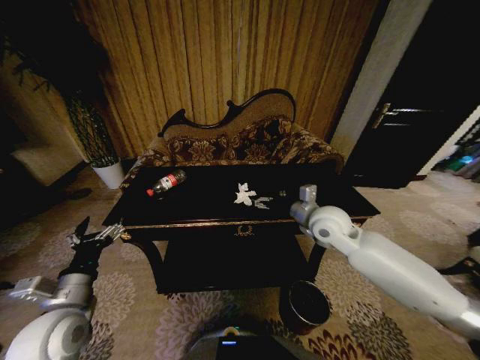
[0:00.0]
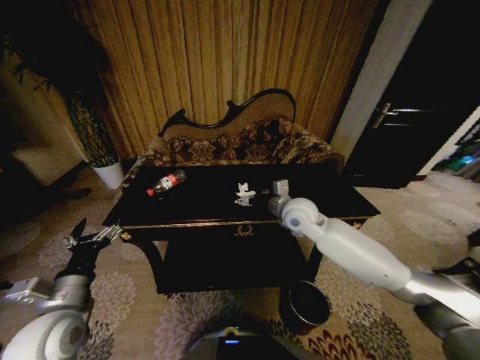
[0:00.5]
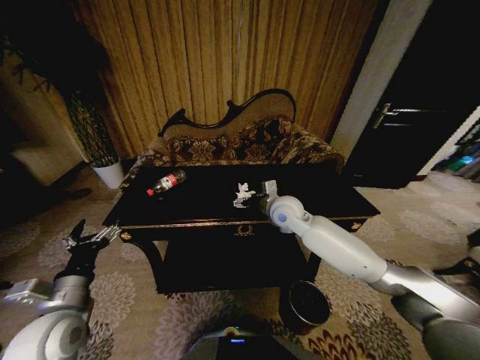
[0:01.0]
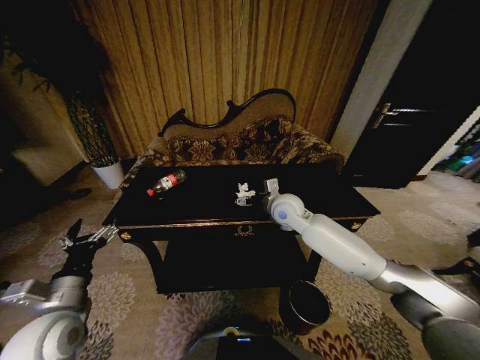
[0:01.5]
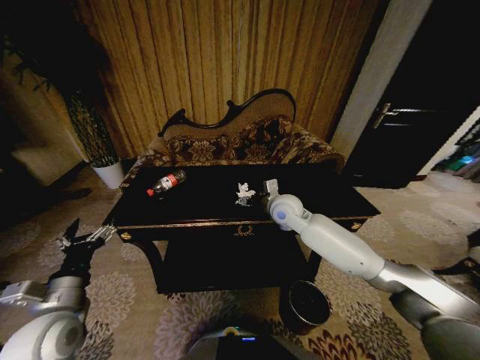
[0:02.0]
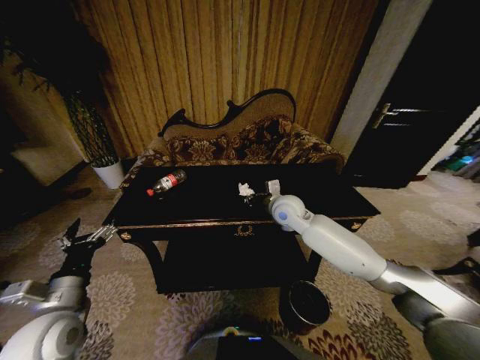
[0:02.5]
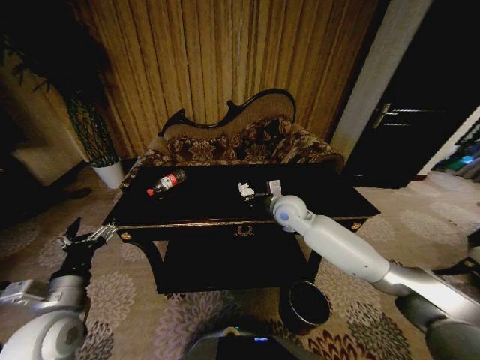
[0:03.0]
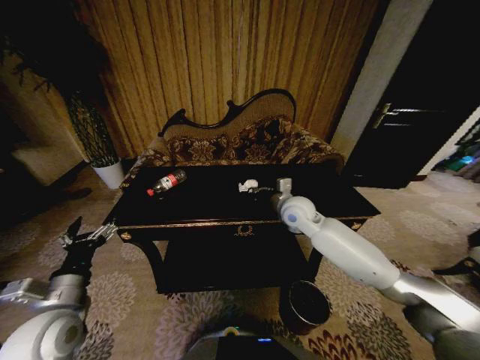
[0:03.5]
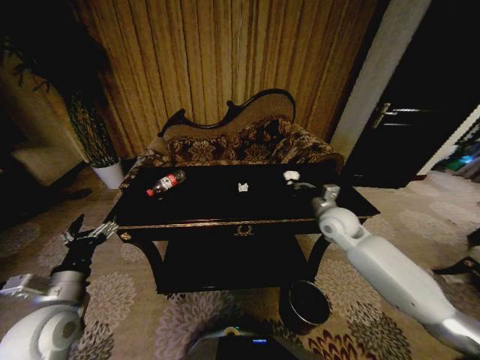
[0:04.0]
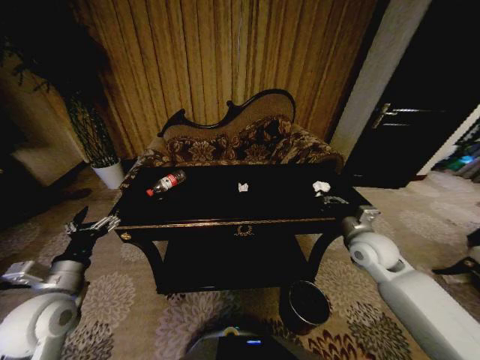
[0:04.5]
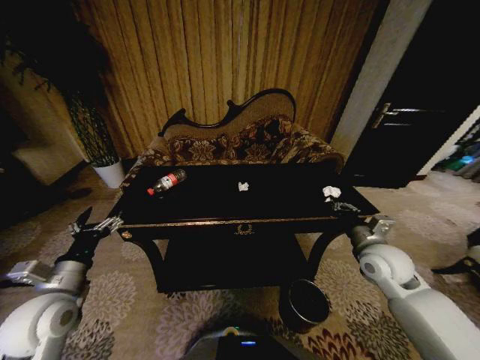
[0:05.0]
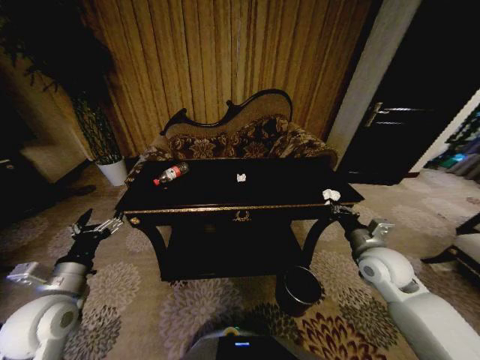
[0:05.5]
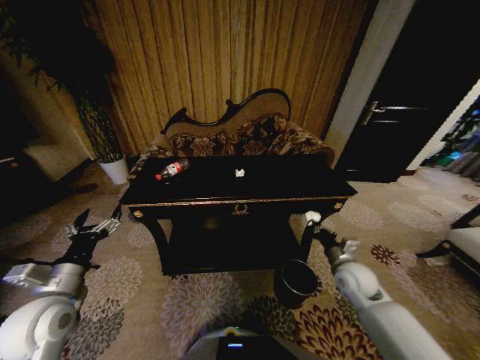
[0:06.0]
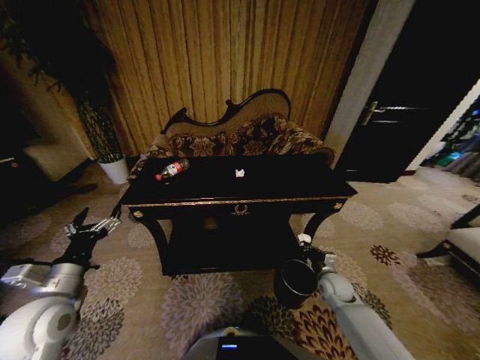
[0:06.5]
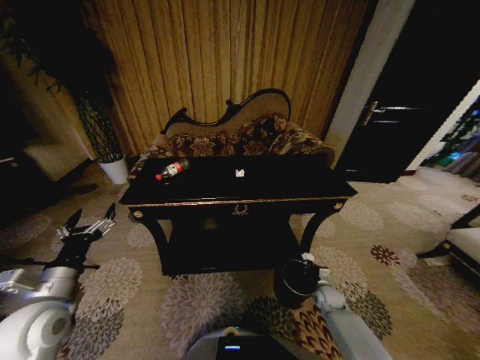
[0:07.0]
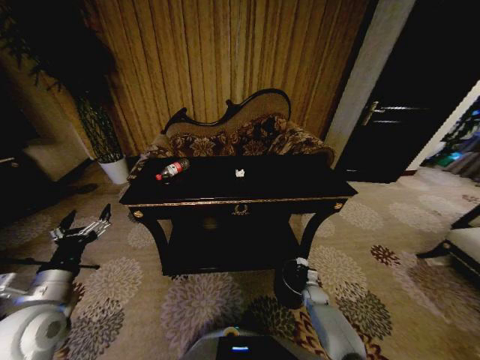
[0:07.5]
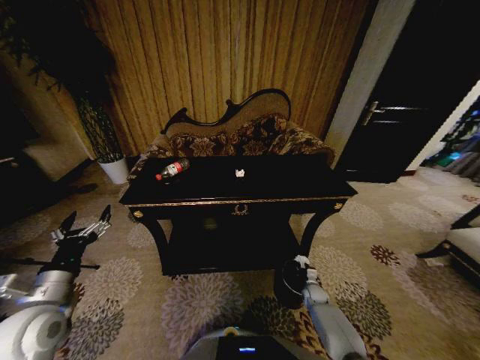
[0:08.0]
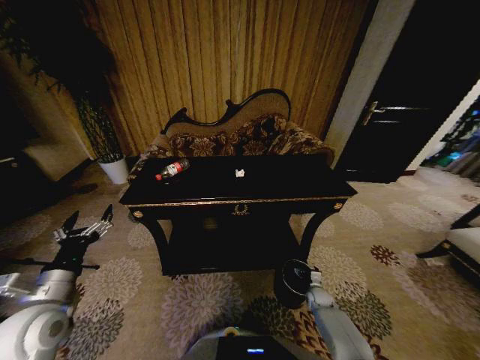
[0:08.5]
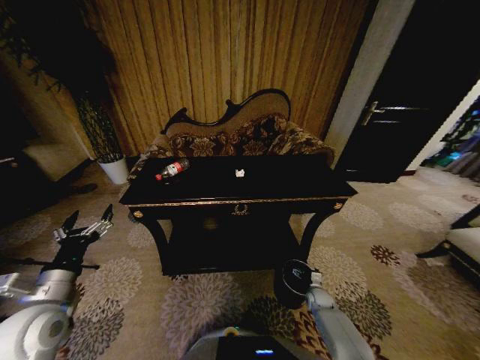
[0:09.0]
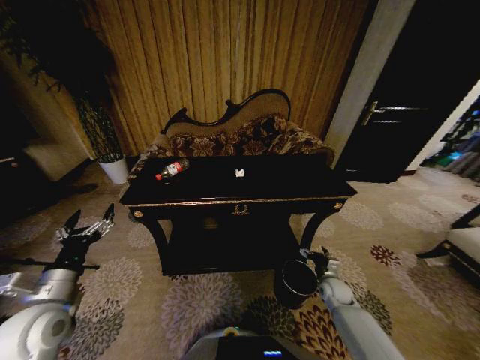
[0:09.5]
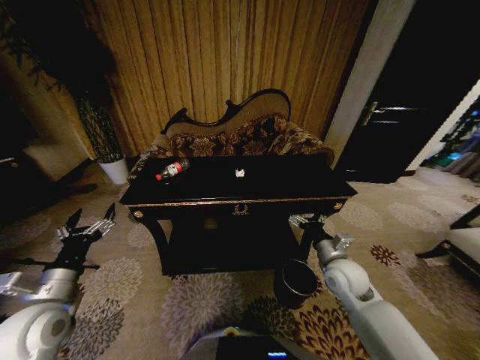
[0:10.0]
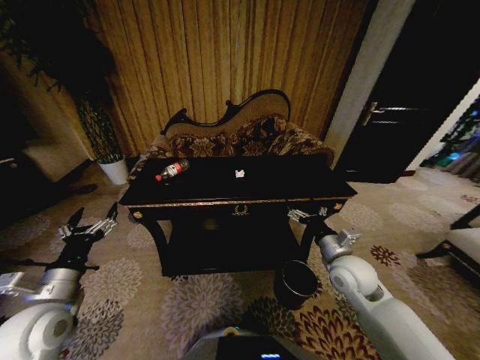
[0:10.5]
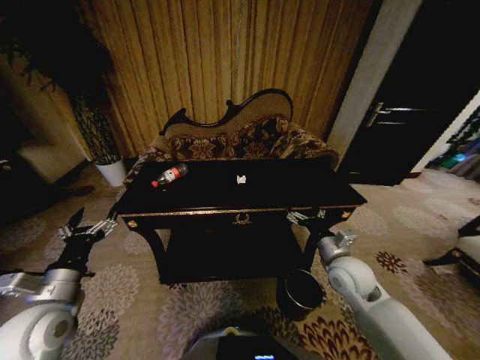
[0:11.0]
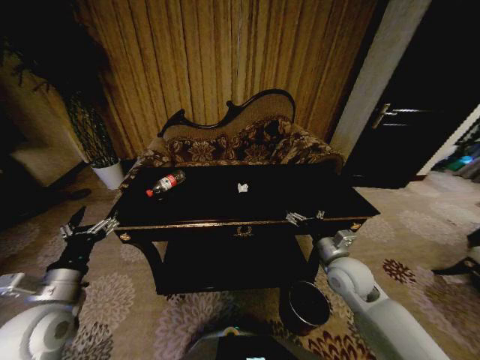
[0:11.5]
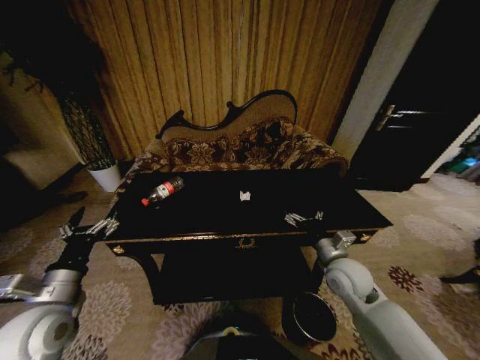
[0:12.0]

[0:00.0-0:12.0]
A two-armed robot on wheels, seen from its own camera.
Task of the whole recording: Move to the front of the table and place the trash on the table into the trash bin.
0:00.0 to 0:02.0: The right gripper heads to the left and forward, covering roughly 10 cm.
0:02.0 to 0:04.0: The right gripper heads to the right, covering about 15 cm, and closes.
0:04.0 to 0:06.0: The right gripper goes some 15 cm backward and downward.
0:06.0 to 0:08.0: The right gripper shifts some 30 cm downward.
0:08.0 to 0:10.0: The right gripper moves upward, some 30 cm, and opens.

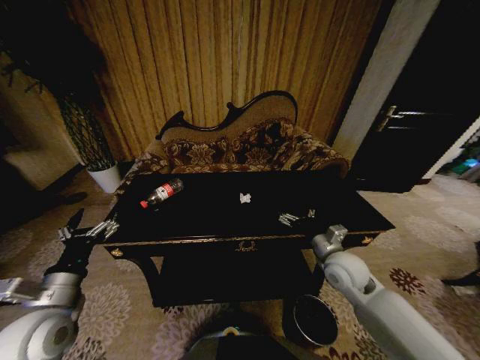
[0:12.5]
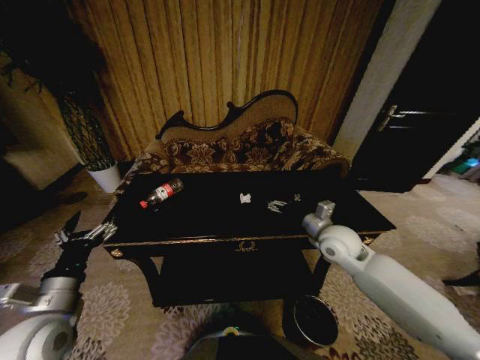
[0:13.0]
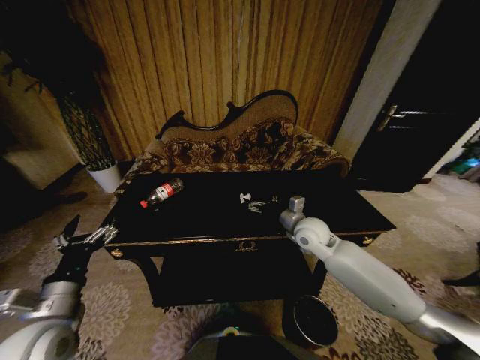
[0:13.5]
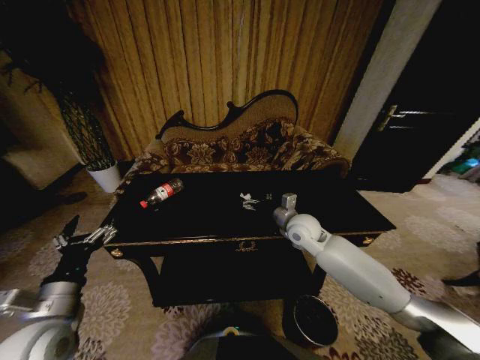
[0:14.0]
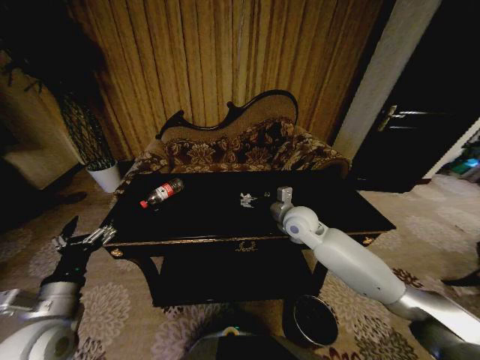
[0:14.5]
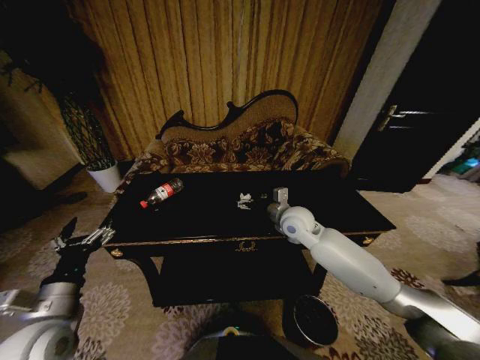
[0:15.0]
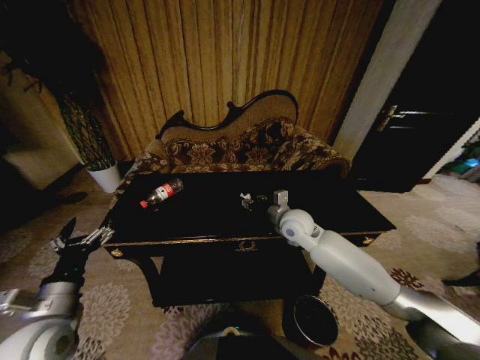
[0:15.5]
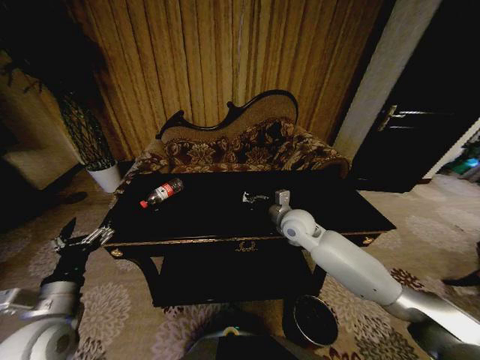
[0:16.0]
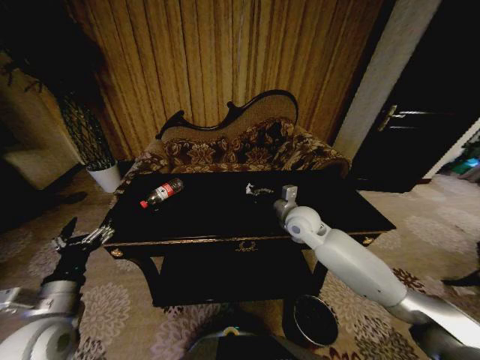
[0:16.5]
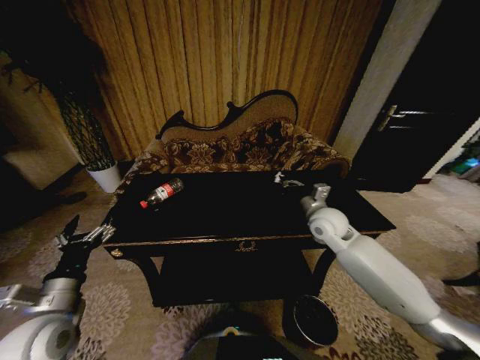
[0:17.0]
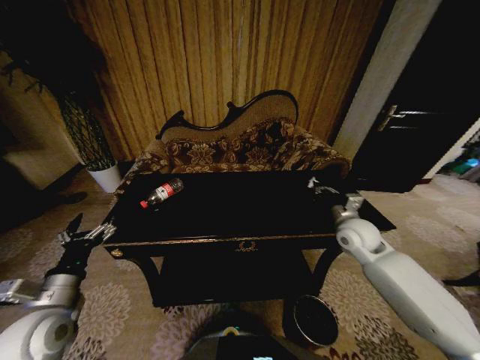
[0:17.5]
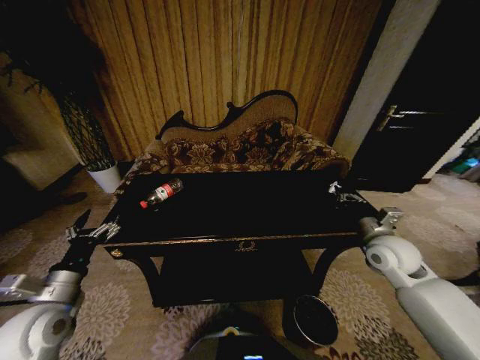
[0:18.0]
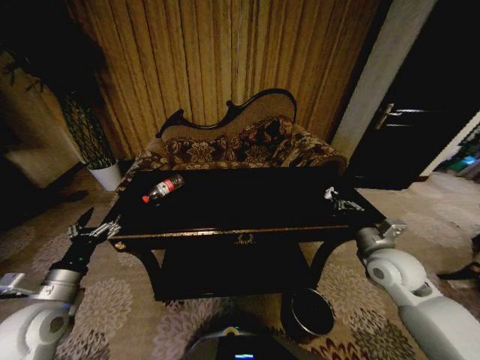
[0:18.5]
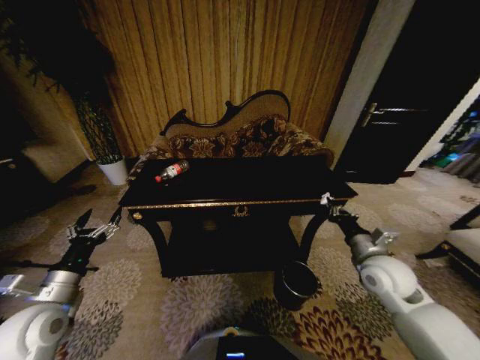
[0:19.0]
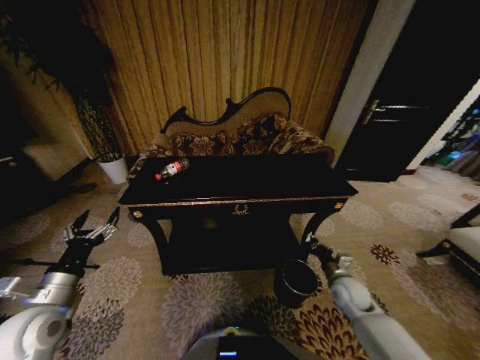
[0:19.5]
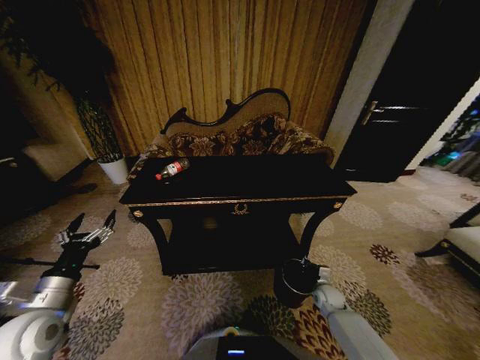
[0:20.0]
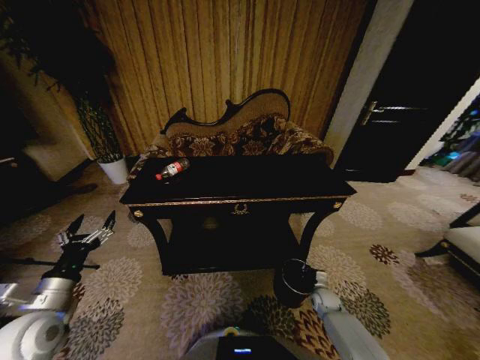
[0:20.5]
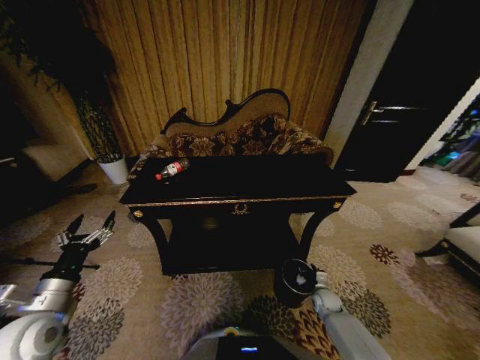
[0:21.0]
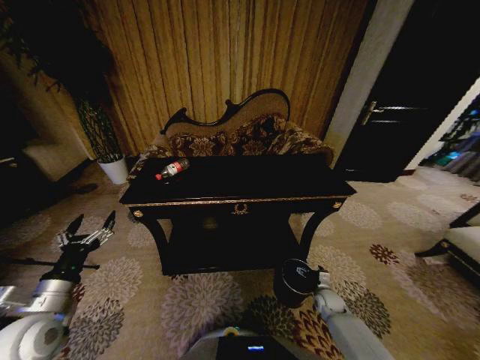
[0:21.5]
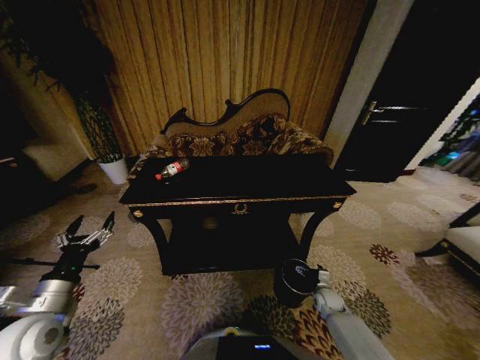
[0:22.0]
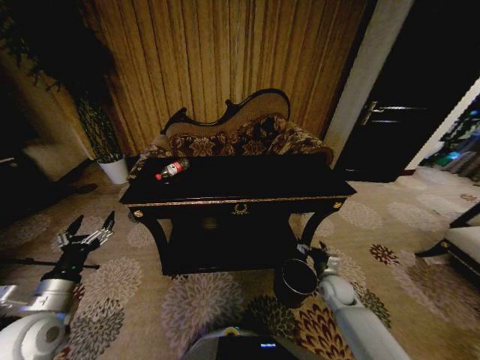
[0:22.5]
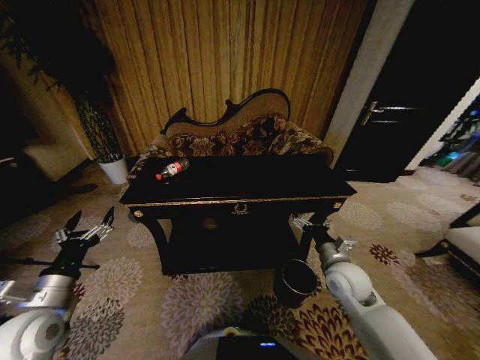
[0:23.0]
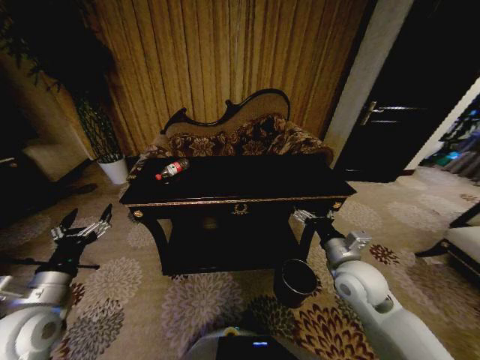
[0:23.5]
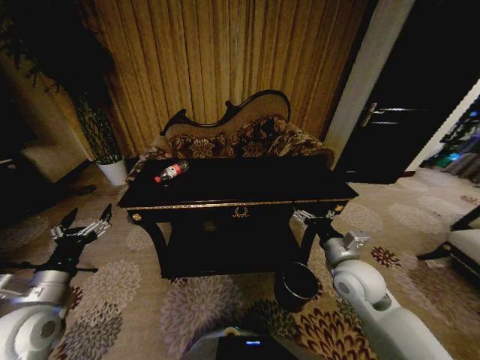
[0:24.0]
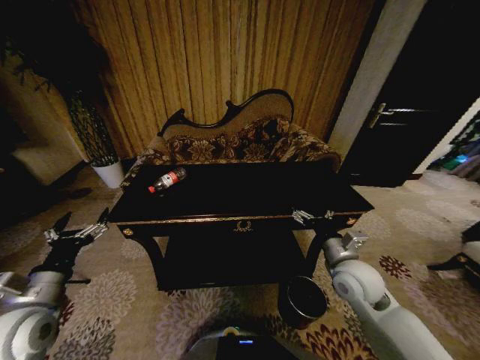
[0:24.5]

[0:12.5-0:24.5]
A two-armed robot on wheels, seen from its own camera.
Task of the whole recording: Move to the front of the table and place the trash on the table into the trash bin.
0:12.5 to 0:14.5: The right gripper is displaced forward, to the left and upward by roughly 15 cm.
0:14.5 to 0:16.5: The right gripper closes its fingers.
0:16.5 to 0:18.5: The left gripper shifts by approximately 5 cm. Meanwhile the right gripper shifts roughly 20 cm to the right and backward.
0:18.5 to 0:20.5: The right gripper travels downward by roughly 35 cm.
0:20.5 to 0:22.5: The right gripper is displaced upward by about 10 cm, and opens its fingers.
0:22.5 to 0:24.5: The right gripper heads upward, covering approximately 20 cm.

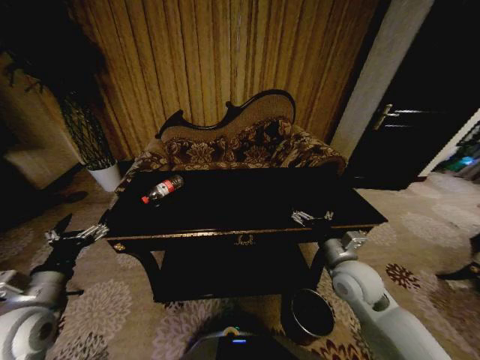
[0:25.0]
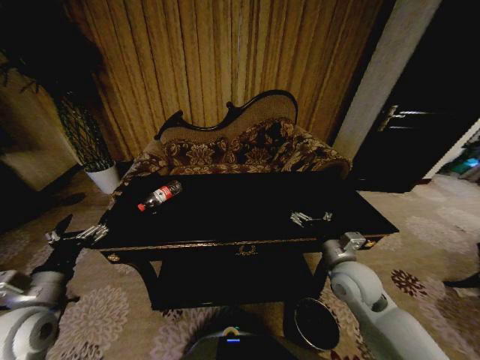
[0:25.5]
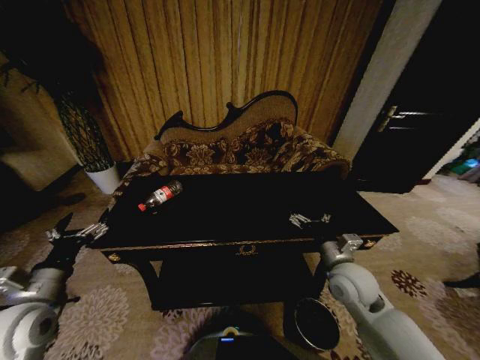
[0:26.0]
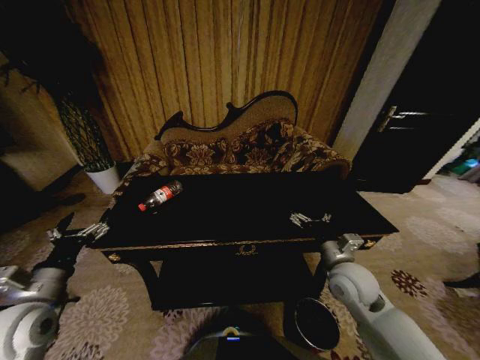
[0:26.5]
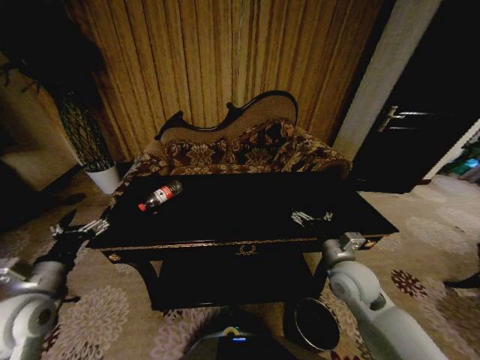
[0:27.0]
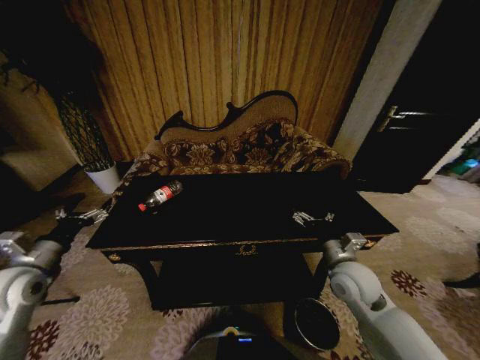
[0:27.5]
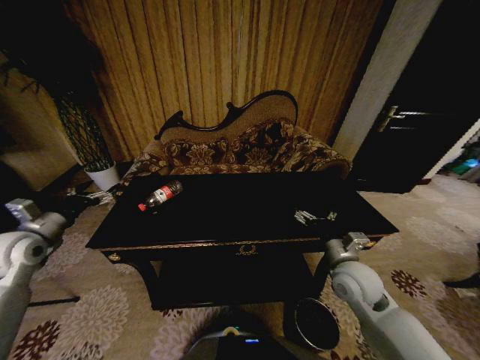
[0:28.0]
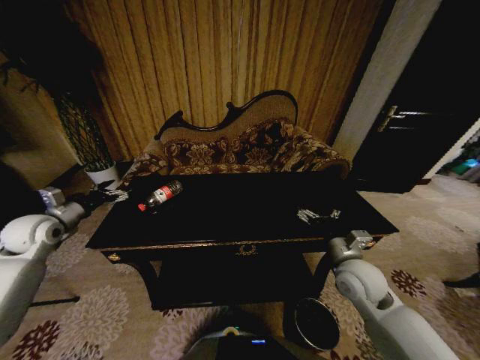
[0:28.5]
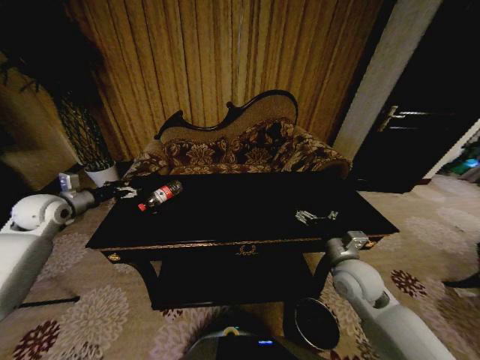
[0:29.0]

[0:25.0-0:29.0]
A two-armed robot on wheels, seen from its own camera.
Task of the whole recording: Move to the front of the table and place the trash on the table into the trash bin.
0:25.0 to 0:27.0: There are only small adjustments of the grippers.
0:27.0 to 0:29.0: The left gripper travels forward by about 25 cm.
